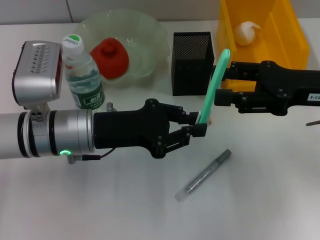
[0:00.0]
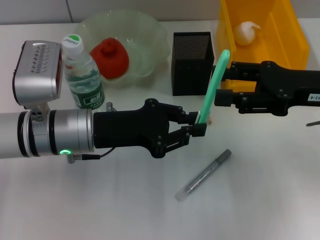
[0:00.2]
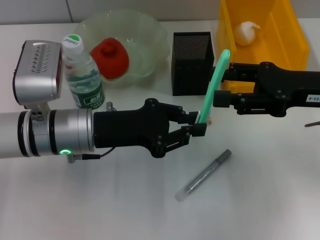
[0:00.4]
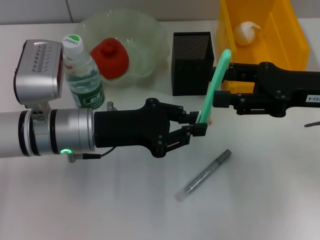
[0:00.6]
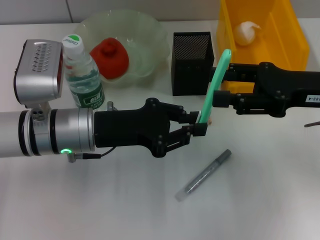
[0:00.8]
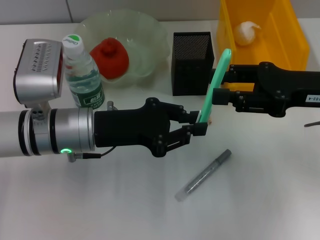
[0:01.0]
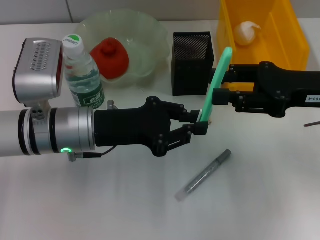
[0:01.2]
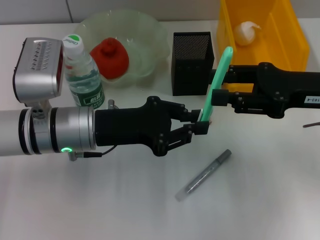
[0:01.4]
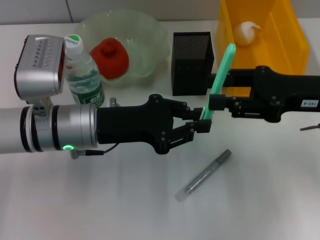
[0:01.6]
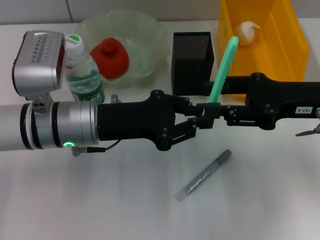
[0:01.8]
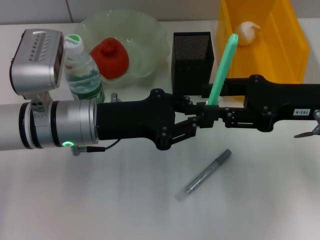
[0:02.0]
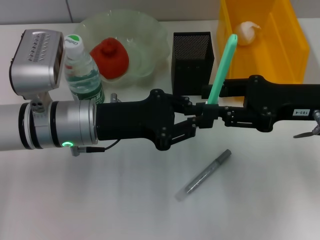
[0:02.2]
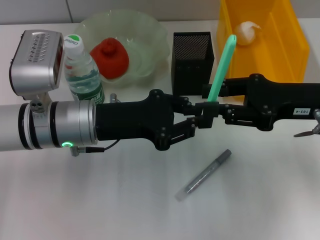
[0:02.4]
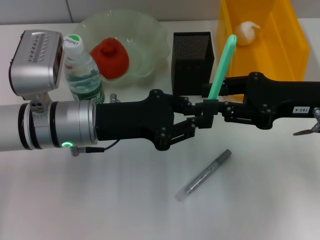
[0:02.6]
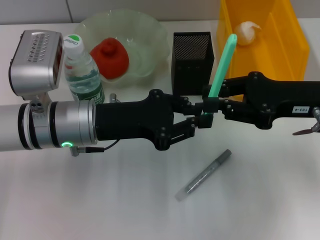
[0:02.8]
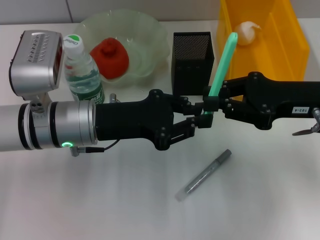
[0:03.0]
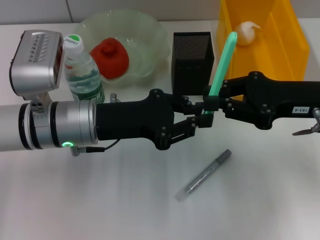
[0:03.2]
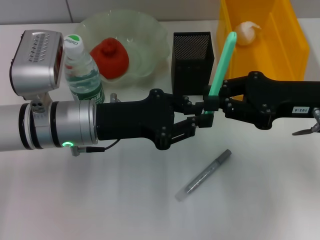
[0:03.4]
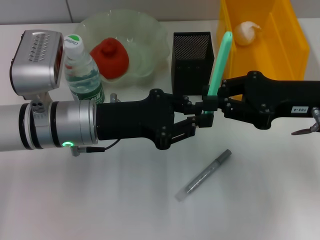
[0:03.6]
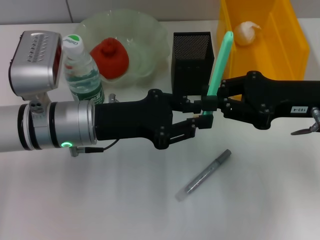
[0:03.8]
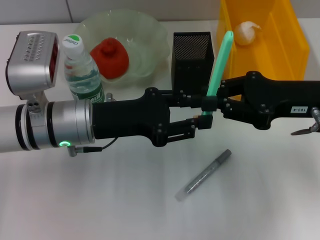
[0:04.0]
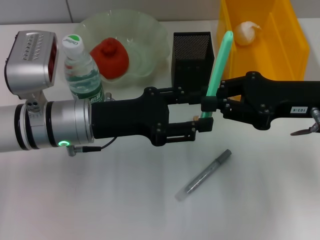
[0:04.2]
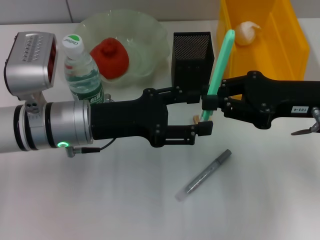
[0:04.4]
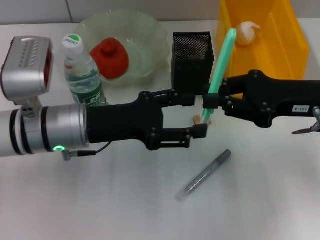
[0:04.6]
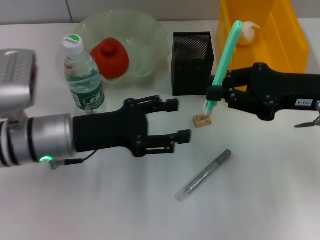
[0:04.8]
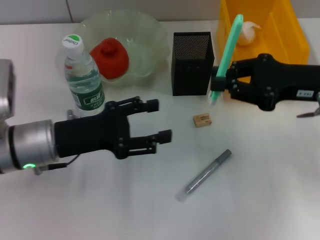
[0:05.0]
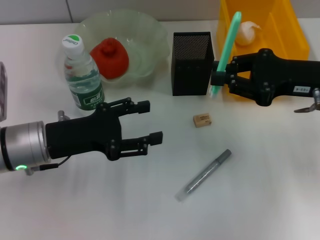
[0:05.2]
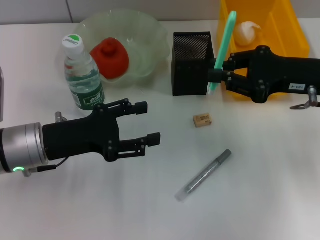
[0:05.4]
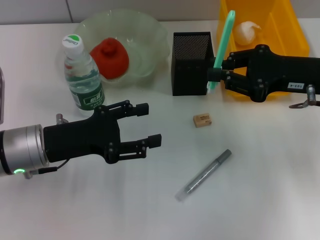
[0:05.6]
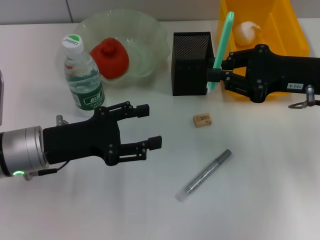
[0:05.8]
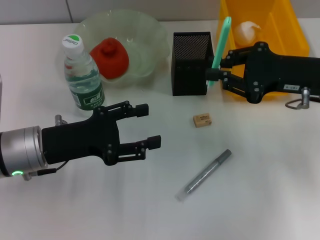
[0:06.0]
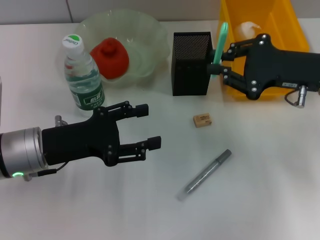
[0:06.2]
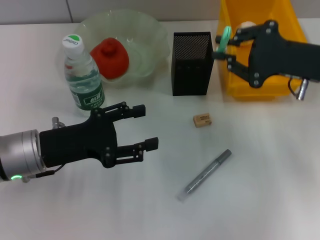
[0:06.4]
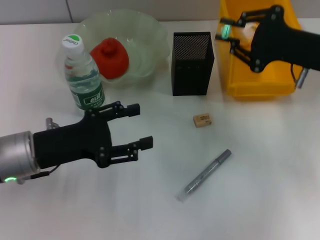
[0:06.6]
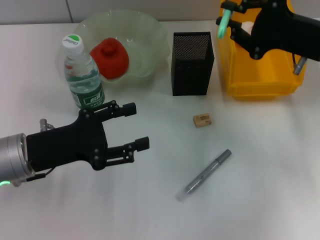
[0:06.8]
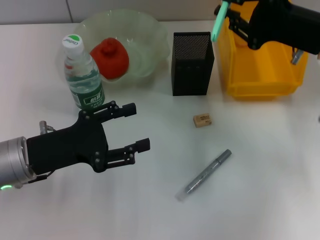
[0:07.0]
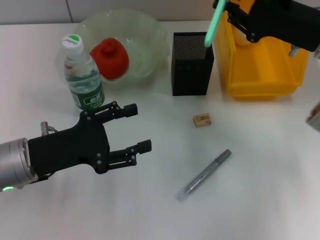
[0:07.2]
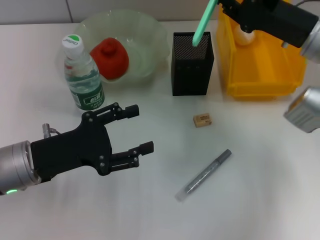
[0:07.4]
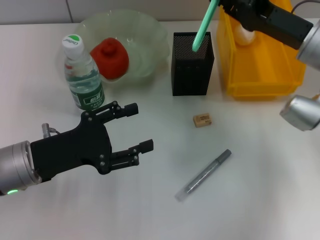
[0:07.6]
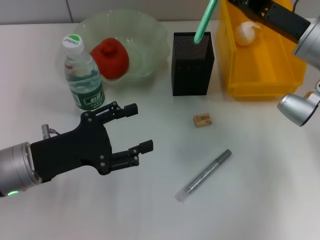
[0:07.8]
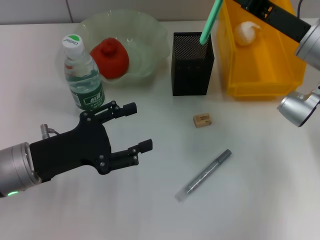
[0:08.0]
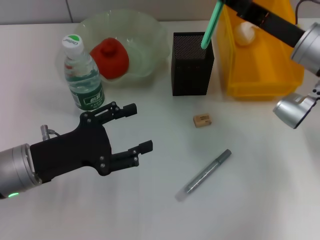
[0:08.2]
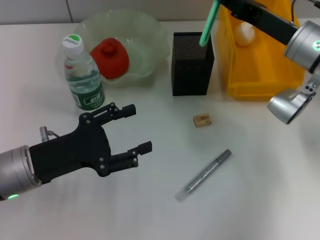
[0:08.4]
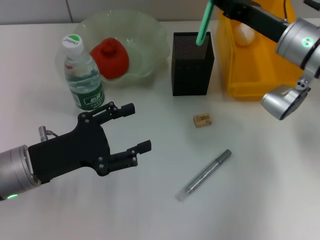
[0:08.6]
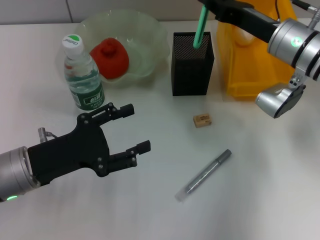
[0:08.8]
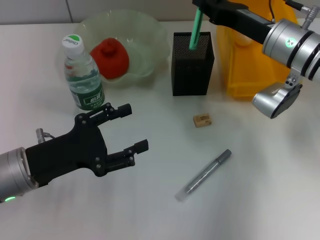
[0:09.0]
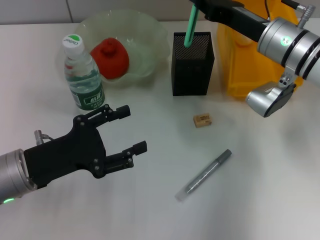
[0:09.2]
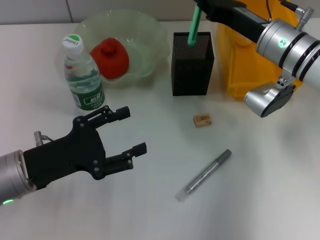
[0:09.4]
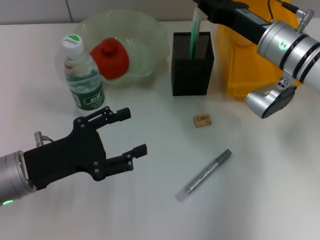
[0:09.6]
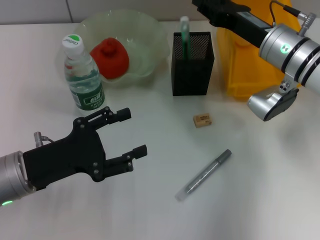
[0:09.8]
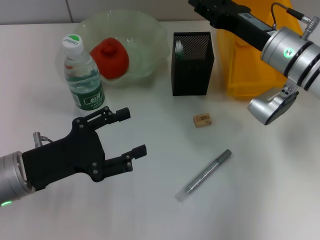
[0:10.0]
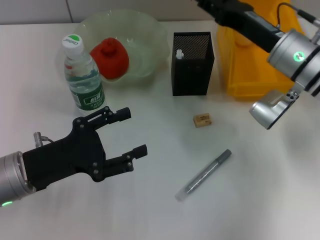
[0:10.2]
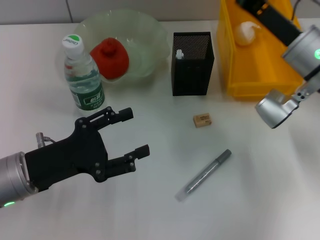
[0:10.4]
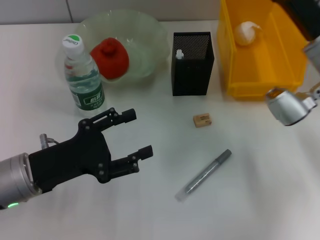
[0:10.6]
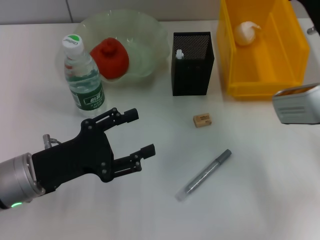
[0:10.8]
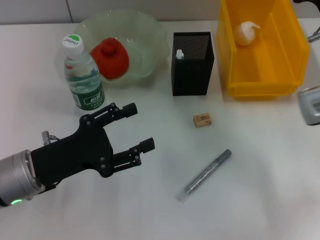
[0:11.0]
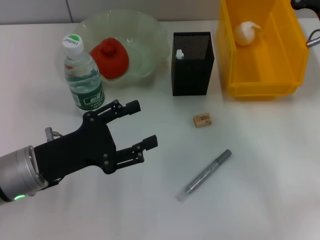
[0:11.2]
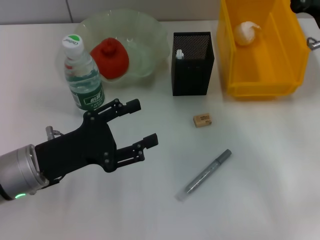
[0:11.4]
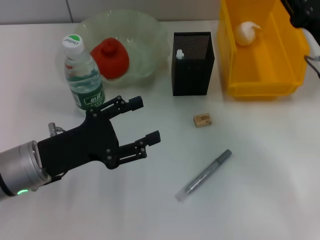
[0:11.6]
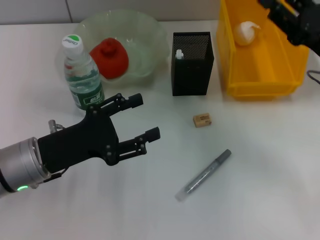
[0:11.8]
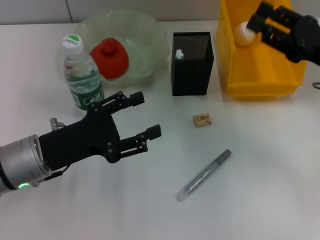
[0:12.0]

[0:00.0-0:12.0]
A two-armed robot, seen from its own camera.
Step, 0:00.0 to 0:04.6: Pass the blue utility knife from the left hand to the right hand.
Step, 0:04.8 to 0:10.0: Place the blue utility knife into the pen holder with the right hand.
0:00.0 to 0:01.6: The two grippers keep their place.
0:01.6 to 0:03.0: The right gripper closes up.
0:03.0 to 0:04.4: The left gripper opens.
0:04.4 to 0:06.0: The left gripper heads to the left, covering some 5 cm.
0:07.6 to 0:09.0: The right gripper moves roughly 5 cm.
0:09.0 to 0:10.4: The right gripper opens.
0:10.4 to 0:12.0: The right gripper is displaced to the right by some 10 cm.

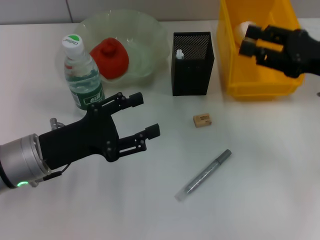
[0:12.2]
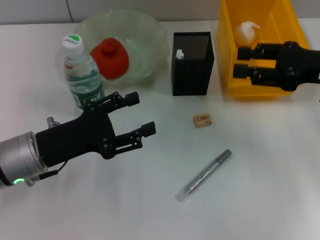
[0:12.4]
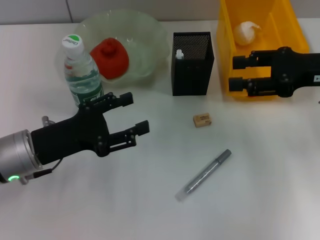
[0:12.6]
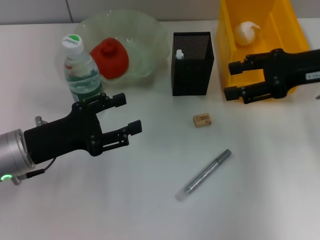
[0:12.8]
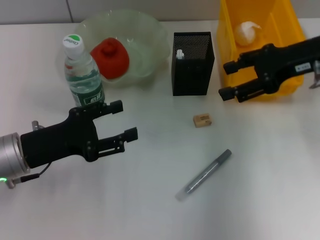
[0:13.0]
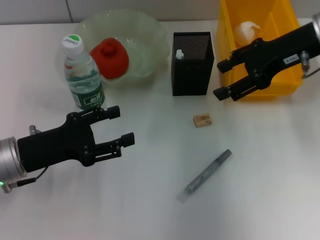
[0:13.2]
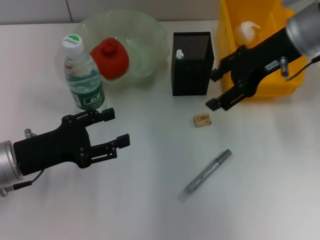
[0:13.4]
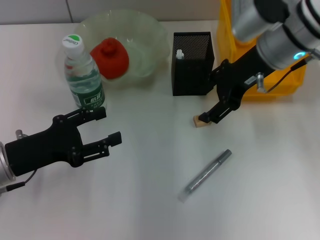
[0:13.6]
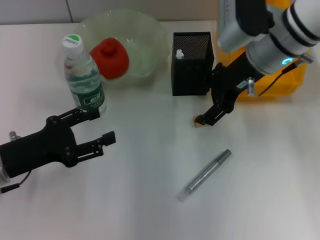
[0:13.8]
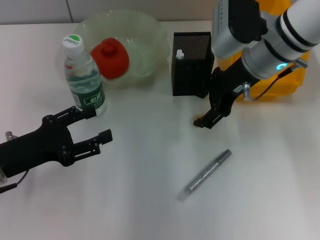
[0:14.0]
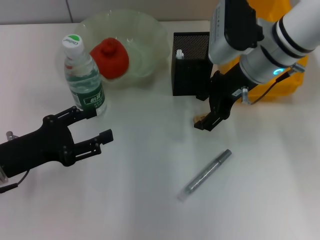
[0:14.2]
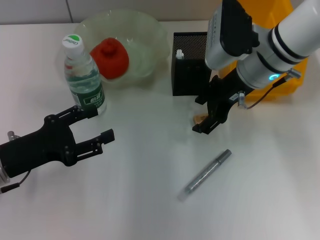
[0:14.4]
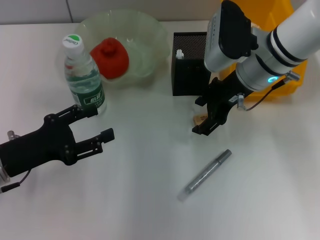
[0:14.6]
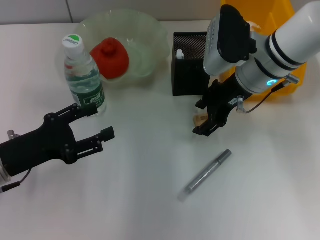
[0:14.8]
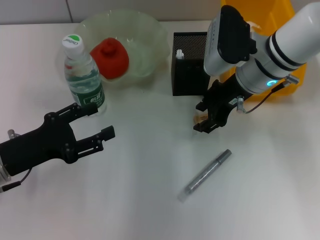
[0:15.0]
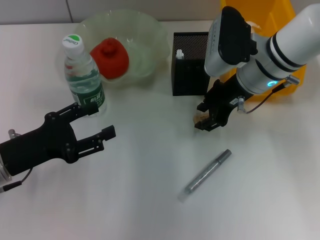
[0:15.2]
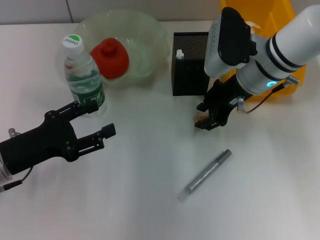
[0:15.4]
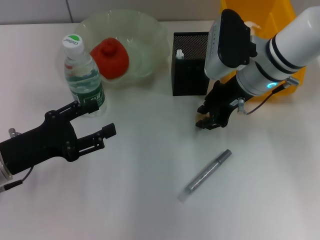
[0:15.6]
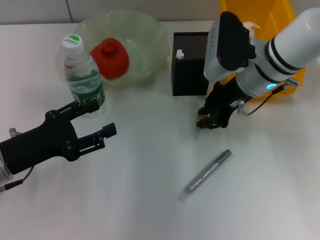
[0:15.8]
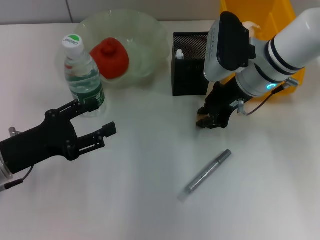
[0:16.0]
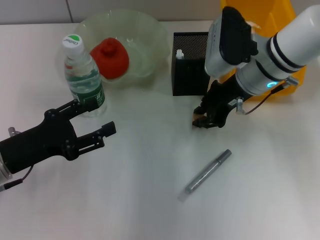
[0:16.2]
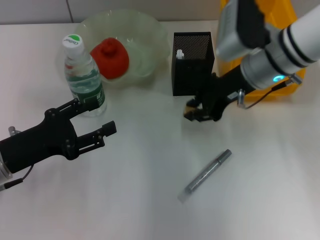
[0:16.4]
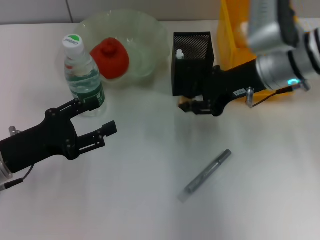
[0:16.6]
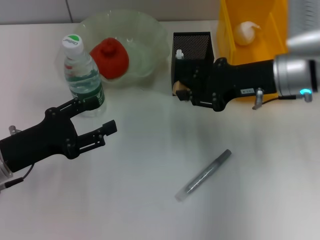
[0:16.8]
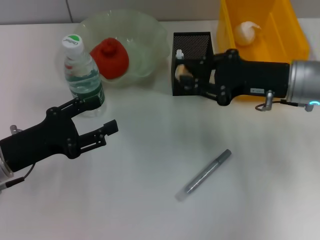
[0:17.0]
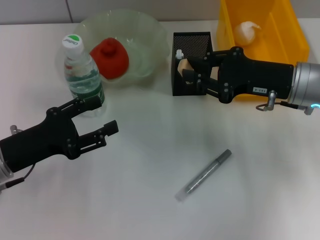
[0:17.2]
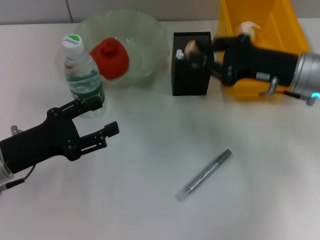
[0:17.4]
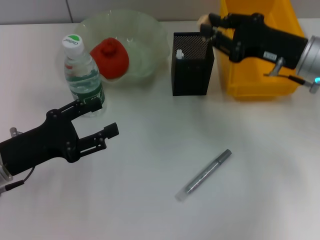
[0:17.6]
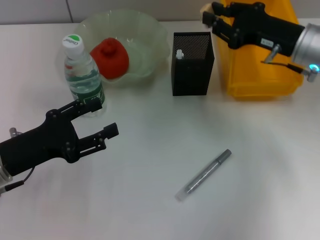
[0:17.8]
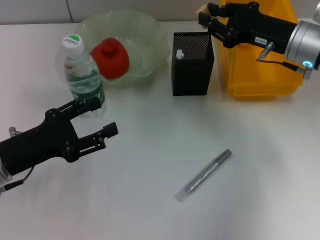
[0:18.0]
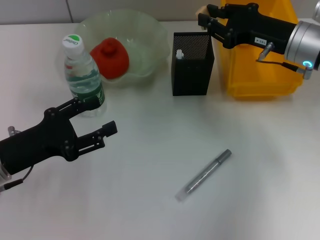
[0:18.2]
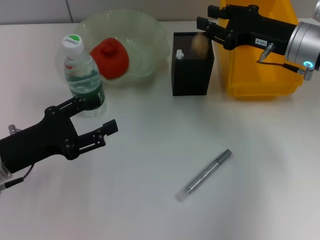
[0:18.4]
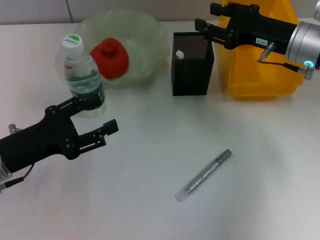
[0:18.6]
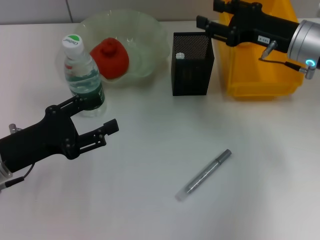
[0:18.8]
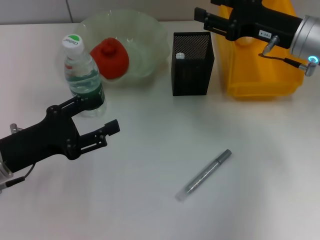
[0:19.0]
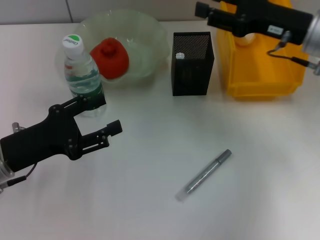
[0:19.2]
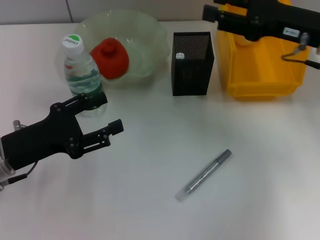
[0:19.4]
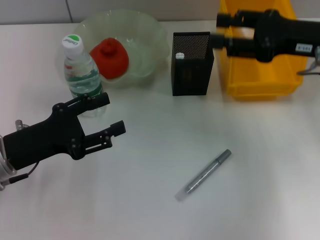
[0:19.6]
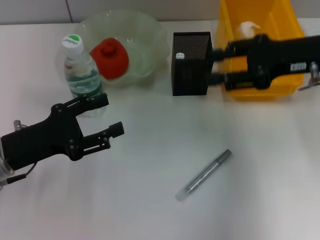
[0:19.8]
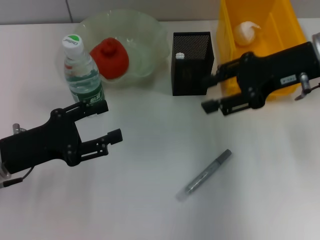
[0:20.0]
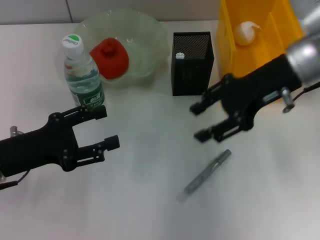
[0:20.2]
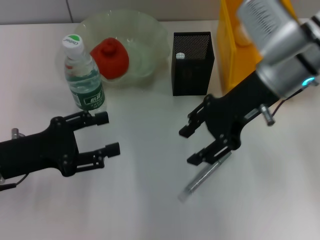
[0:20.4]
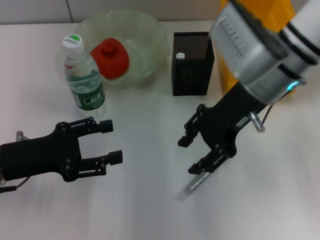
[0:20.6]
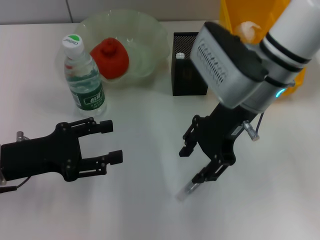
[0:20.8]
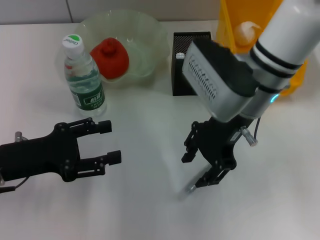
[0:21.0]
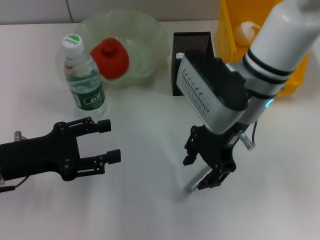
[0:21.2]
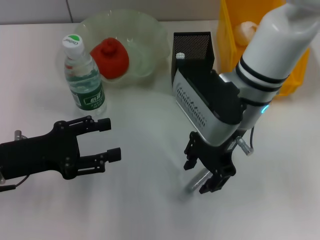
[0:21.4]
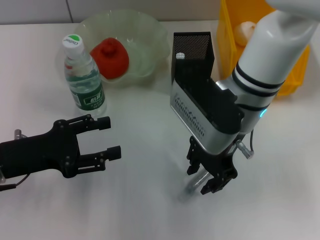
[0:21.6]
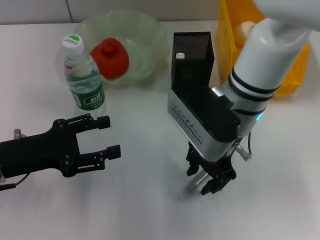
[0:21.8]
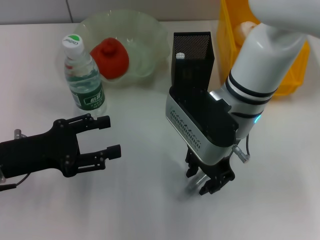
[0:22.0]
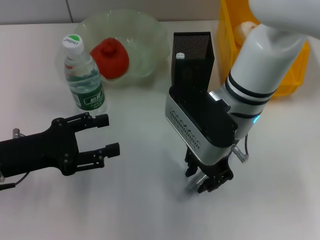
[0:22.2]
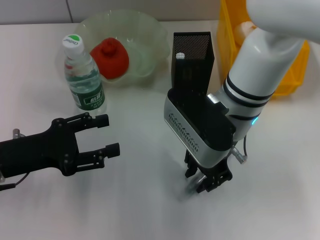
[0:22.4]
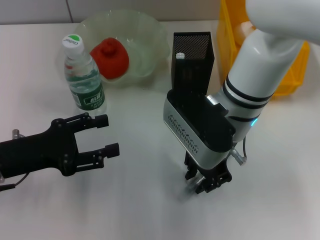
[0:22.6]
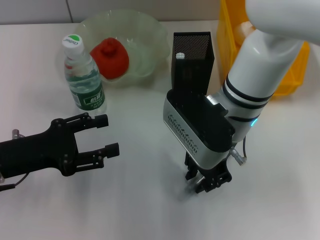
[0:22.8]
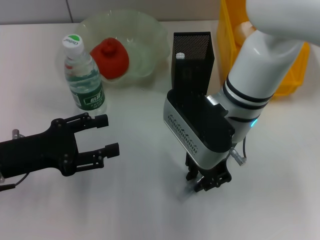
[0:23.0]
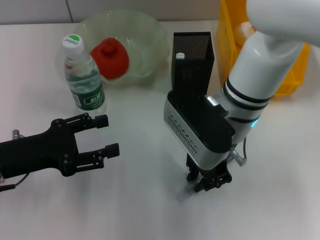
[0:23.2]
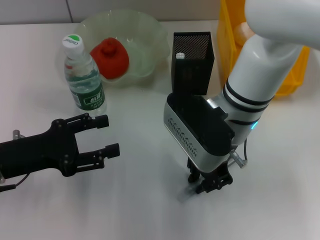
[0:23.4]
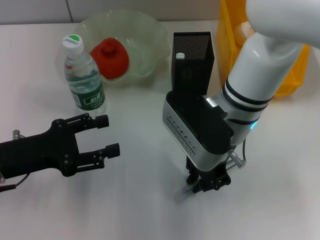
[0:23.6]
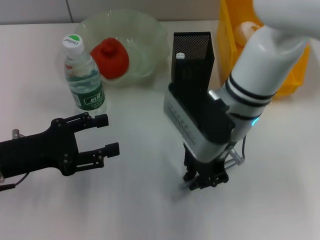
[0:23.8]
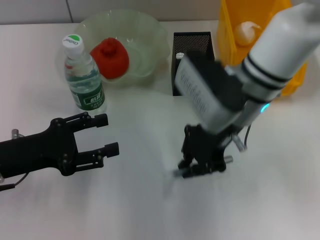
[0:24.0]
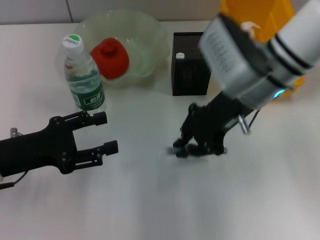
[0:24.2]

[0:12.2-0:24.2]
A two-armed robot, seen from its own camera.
Step, 0:12.2 to 0:16.0: Grab the eraser with the right hand.
Step, 0:16.2 to 0:18.8: Put the eraser into the pen holder with the right hand.
Step, 0:19.0 to 0:23.8: Grab the gray glue with the right hand.
0:12.2 to 0:13.8: The right gripper goes approximately 15 cm to the left and forward. The left gripper travels to the left by some 5 cm.
0:13.8 to 0:15.2: The grippers move only a little.
0:15.2 to 0:16.6: The right gripper closes its fingers.
0:16.6 to 0:18.2: The right gripper moves about 5 cm.
0:18.2 to 0:19.8: The right gripper heads upward, covering approximately 5 cm, and opens.
0:19.8 to 0:21.2: The right gripper goes about 15 cm to the left.
0:21.2 to 0:22.6: The right gripper closes its fingers.
0:22.6 to 0:24.2: The right gripper shifts by some 5 cm.
